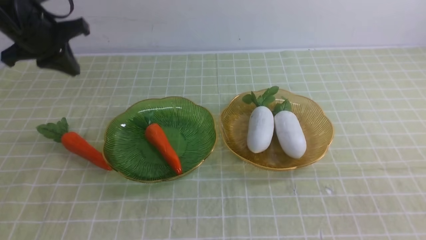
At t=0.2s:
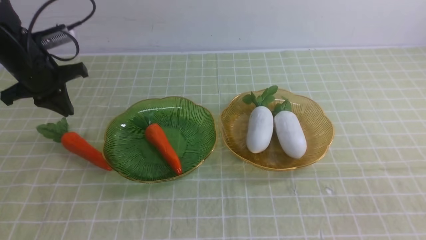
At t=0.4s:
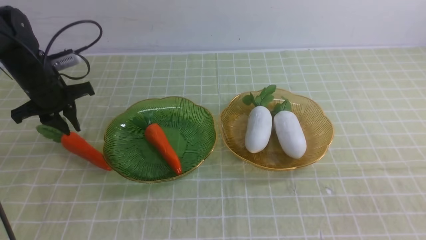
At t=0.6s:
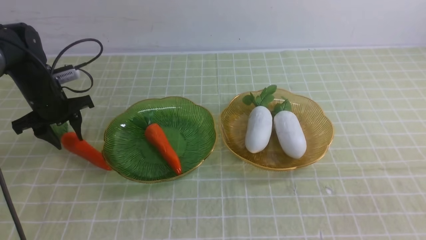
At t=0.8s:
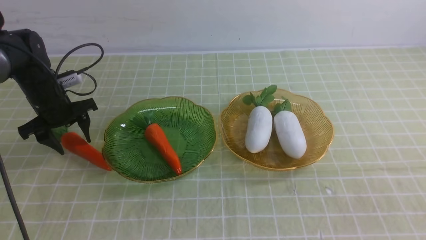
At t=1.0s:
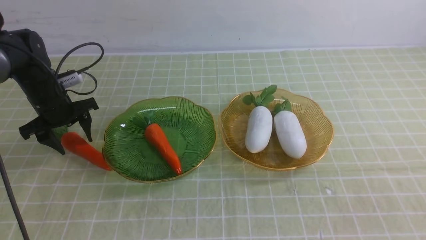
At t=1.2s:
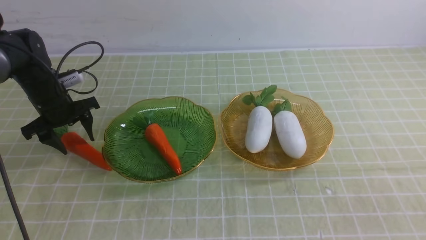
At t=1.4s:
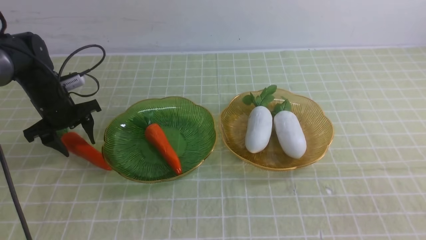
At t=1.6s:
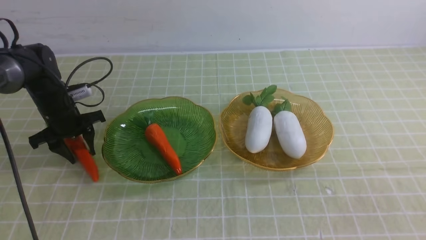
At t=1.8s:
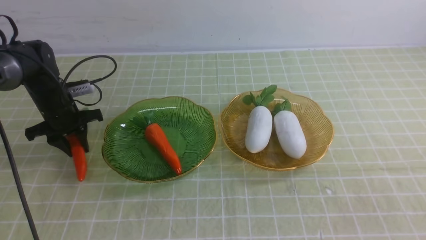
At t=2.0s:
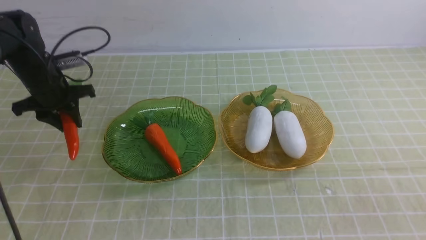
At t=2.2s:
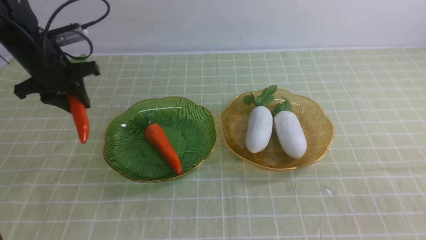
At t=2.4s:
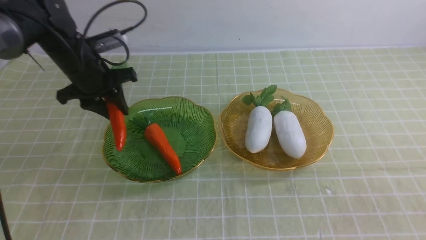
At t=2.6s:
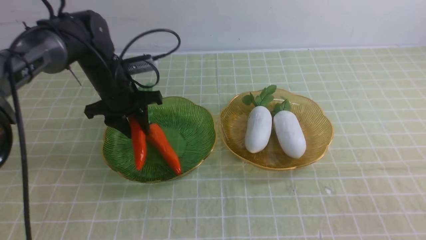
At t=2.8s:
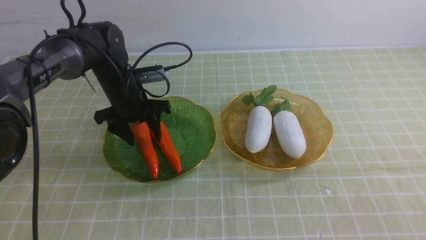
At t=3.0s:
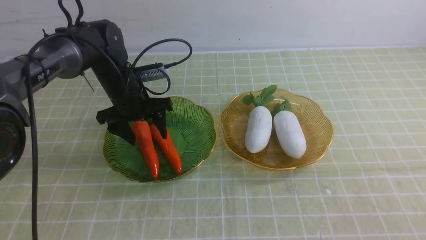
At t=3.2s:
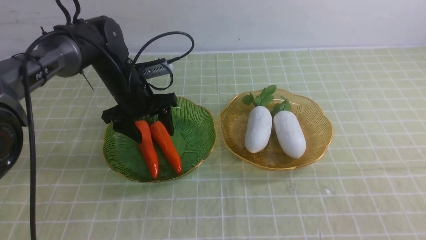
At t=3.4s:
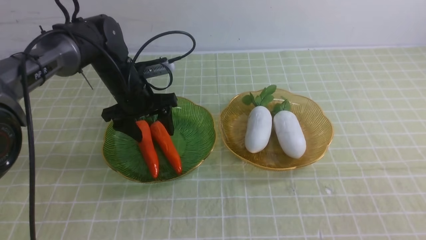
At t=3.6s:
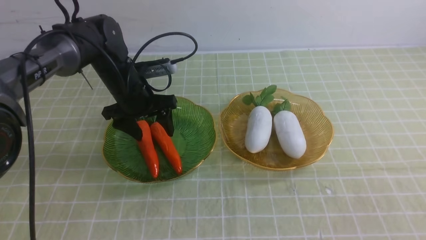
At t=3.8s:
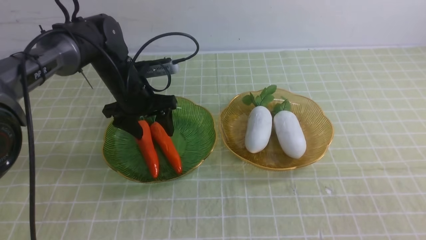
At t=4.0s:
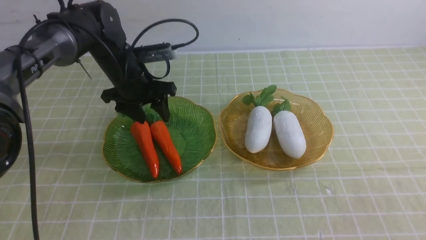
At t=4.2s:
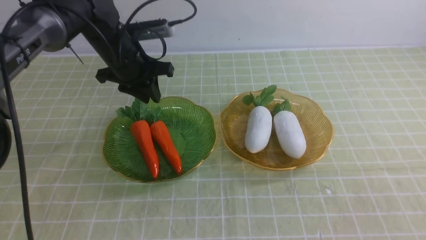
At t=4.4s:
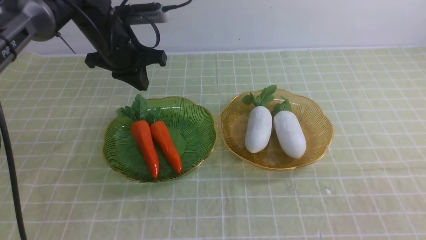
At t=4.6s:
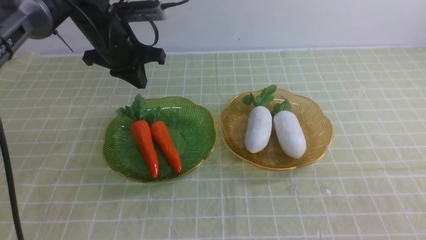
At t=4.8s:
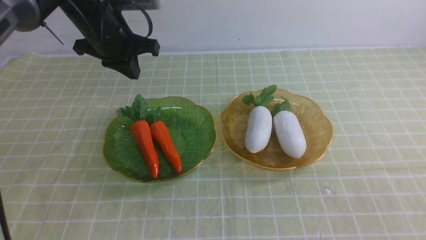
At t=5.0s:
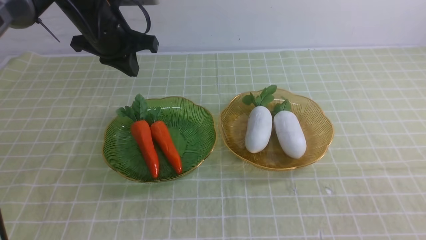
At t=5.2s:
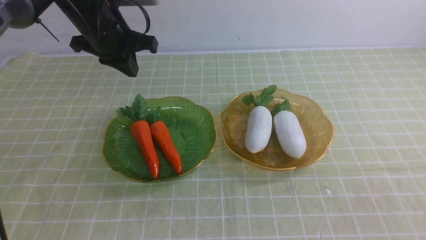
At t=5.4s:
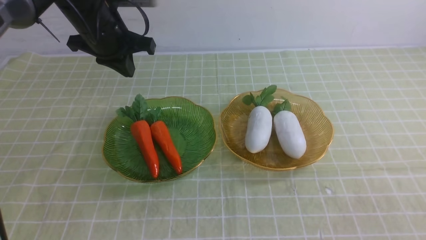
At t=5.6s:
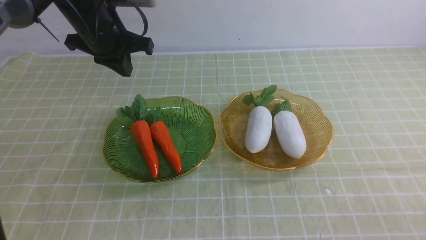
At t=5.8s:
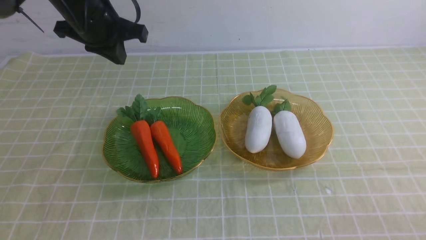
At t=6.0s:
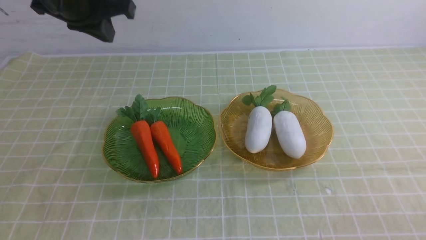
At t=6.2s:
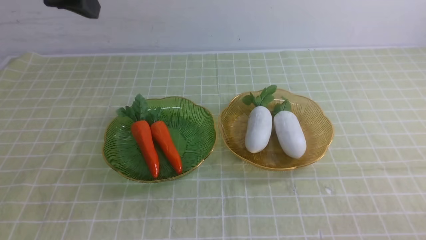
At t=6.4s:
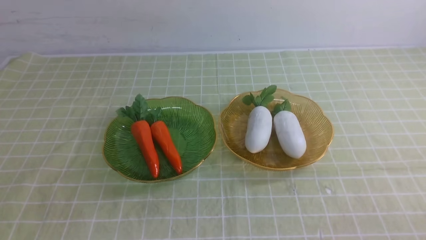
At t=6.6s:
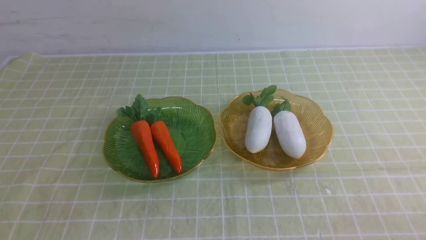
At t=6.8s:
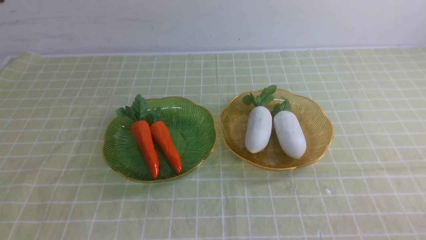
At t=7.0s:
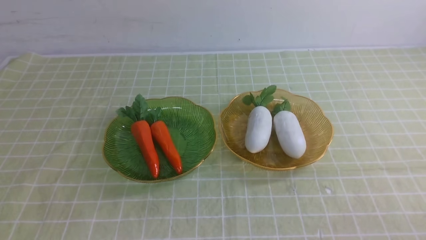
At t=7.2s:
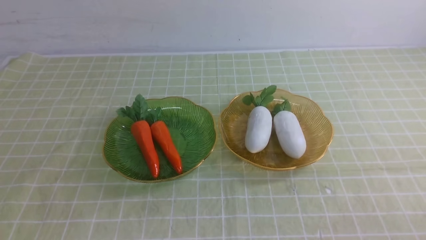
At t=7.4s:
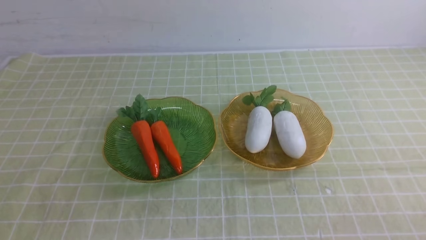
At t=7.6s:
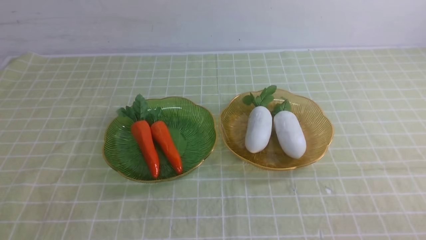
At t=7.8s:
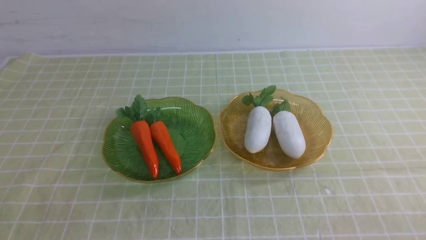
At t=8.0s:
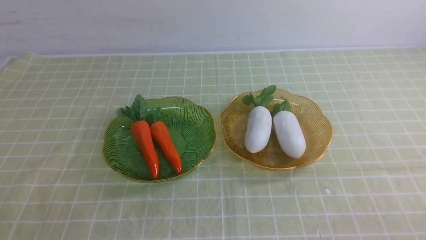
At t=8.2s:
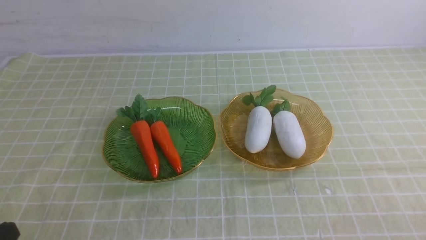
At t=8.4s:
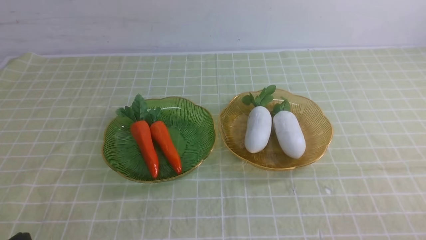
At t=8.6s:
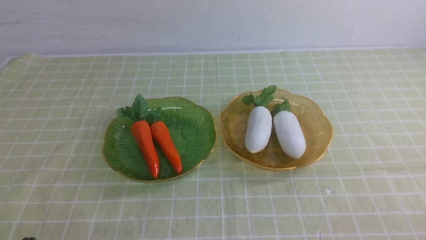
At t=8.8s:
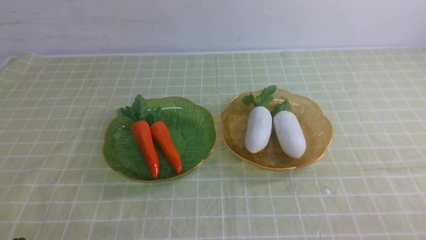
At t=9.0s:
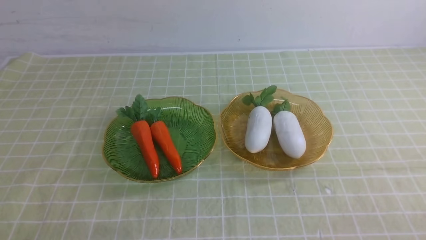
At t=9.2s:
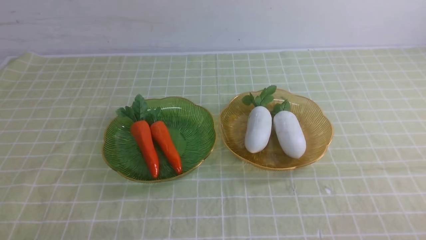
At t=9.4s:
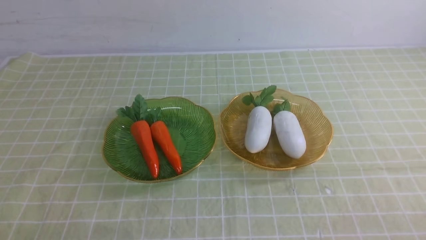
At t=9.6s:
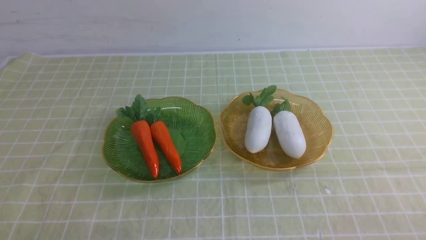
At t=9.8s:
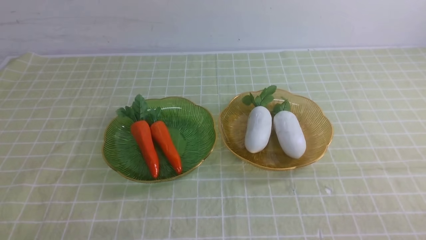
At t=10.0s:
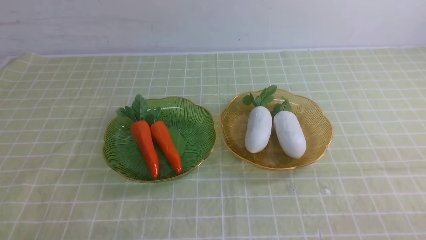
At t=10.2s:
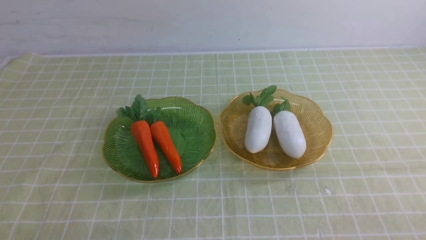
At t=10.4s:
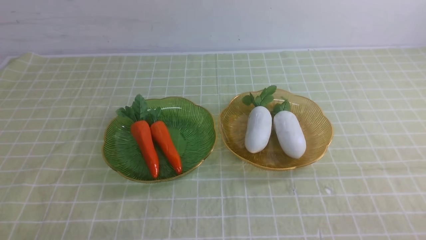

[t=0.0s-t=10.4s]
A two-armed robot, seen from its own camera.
Step, t=0.0s to t=3.8s: use the left arm to grab a carrot and put it into the left plate.
t=0.0s to t=1.4s: The left gripper shifts some 15 cm downward, and opens its fingers.
t=1.4s to t=3.0s: The left gripper shifts approximately 15 cm to the right, and closes, then opens again.
t=3.0s to t=4.4s: The left gripper is displaced upward by roughly 10 cm, and closes.
t=4.4s to t=6.0s: The right gripper goes about 10 cm downward; the left gripper moves upward and backward, about 10 cm.
t=6.0s to t=7.4s: The left gripper shifts some 40 cm backward.
t=9.0s to t=10.4s: Neither gripper changes place.
